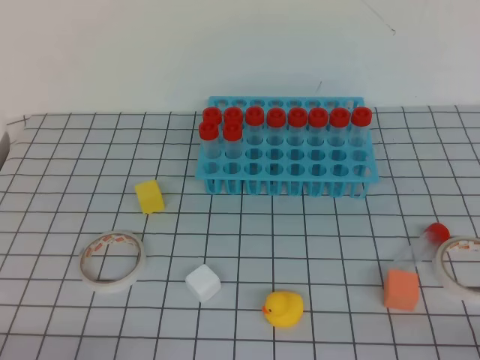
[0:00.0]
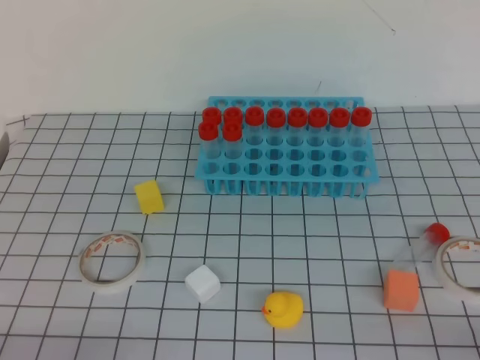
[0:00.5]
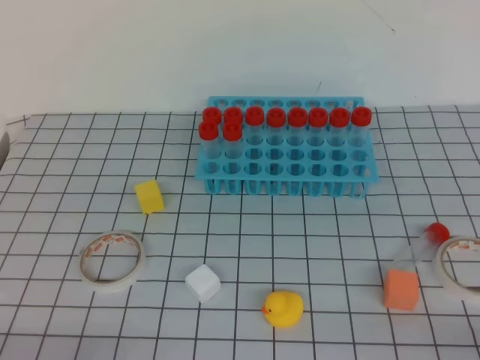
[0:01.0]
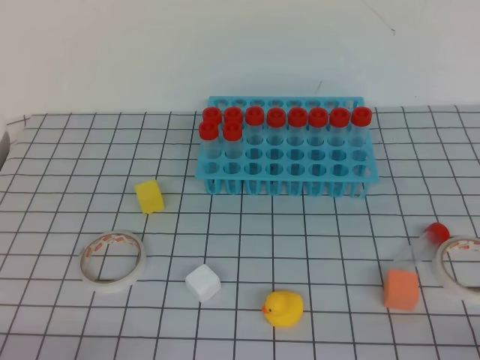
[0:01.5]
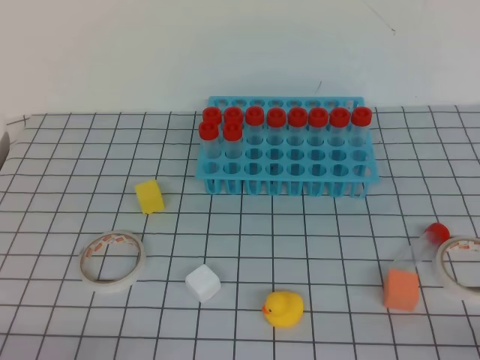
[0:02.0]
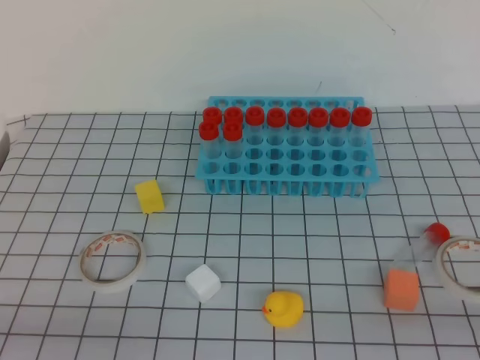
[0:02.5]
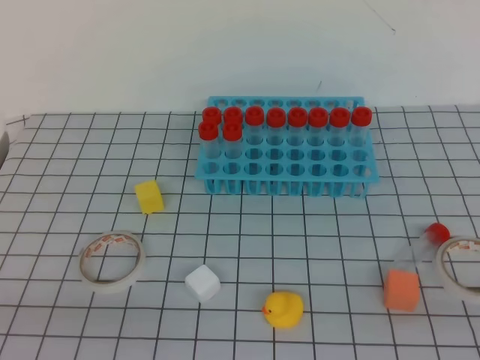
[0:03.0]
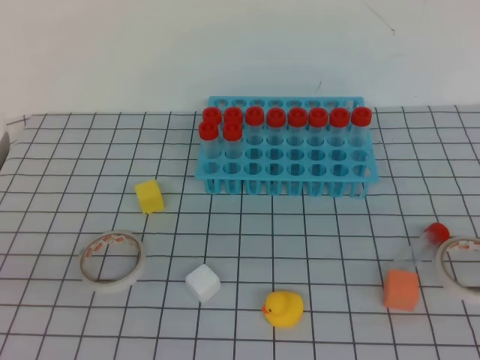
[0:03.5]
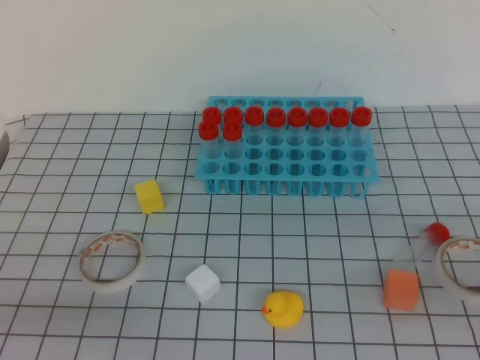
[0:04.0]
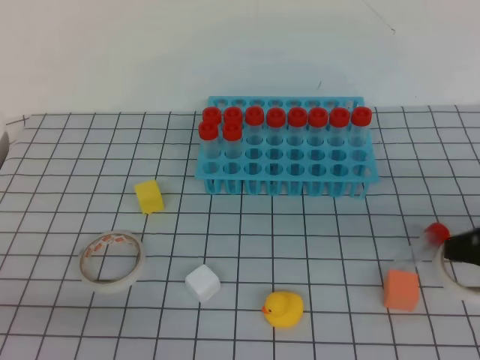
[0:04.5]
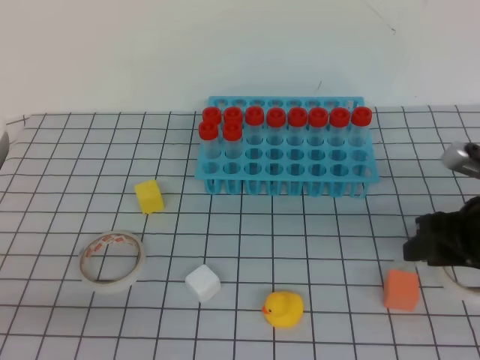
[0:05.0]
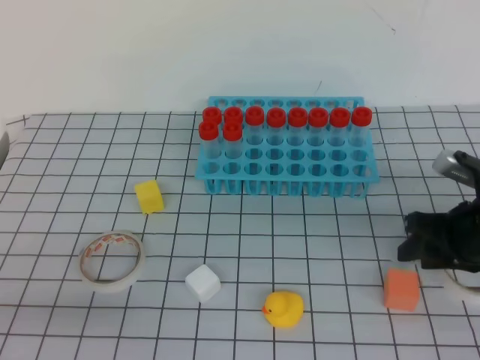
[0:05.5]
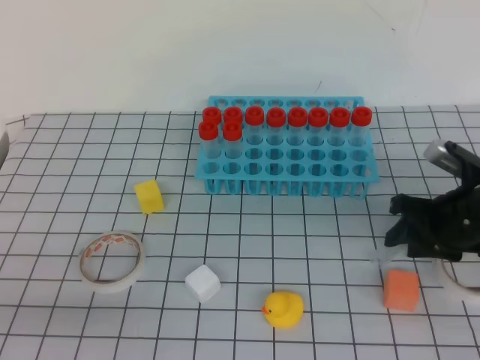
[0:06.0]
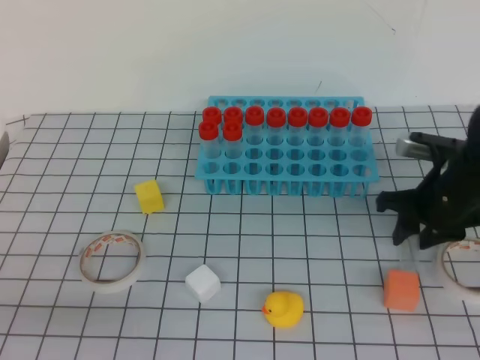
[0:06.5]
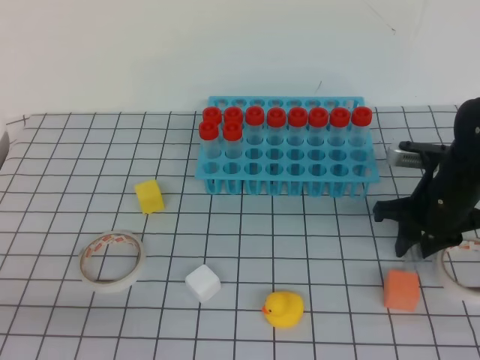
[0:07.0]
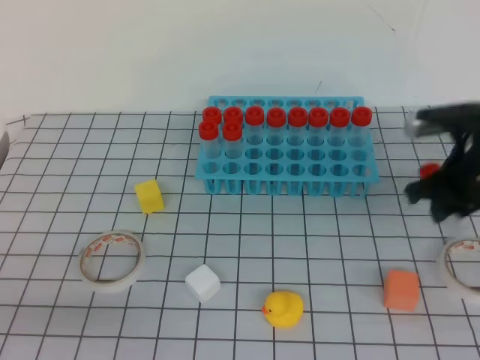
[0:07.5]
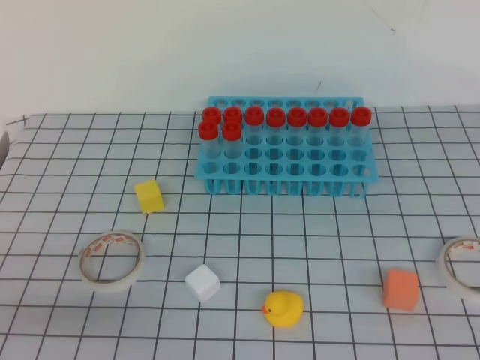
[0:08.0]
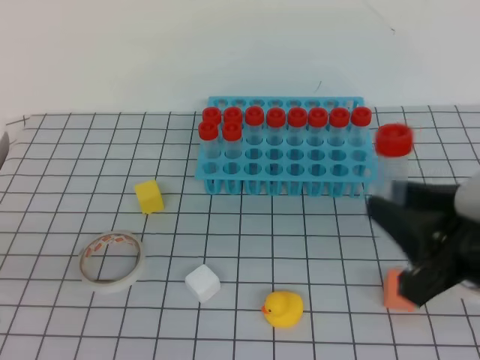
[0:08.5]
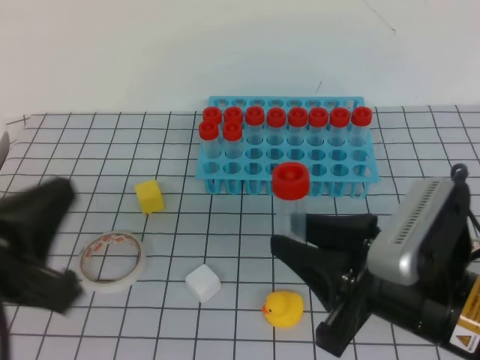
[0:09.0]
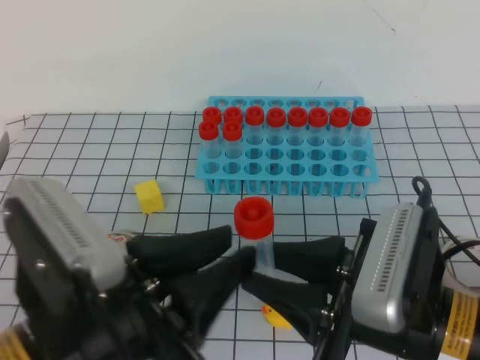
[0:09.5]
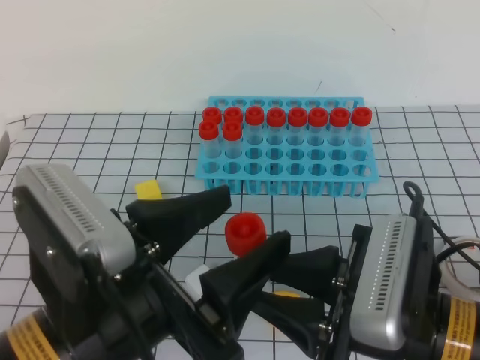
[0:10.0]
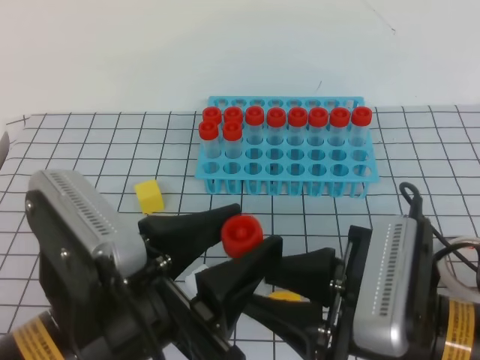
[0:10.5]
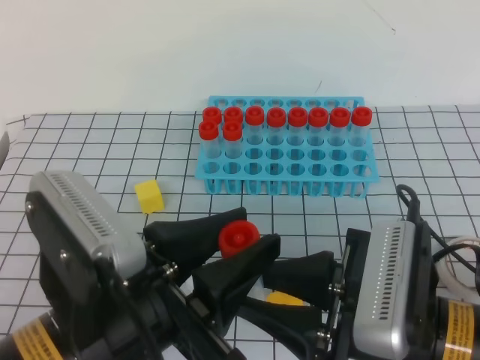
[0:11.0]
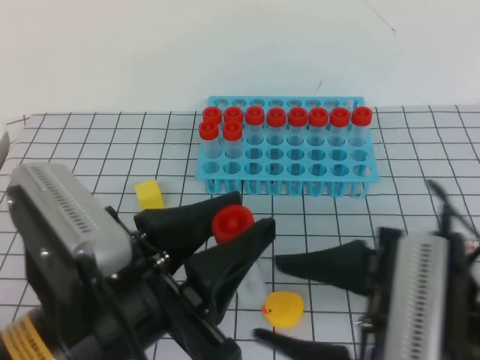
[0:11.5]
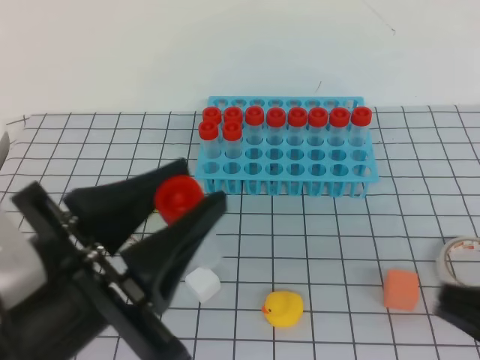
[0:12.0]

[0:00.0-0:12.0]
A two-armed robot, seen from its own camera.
0:00.0 to 0:02.0: Both grippers stay about where they are.
0:02.0 to 0:04.0: The left gripper shifts some 10 cm upward. Meanwhile the right gripper goes roughly 10 cm upward and forward.
0:04.0 to 0:06.0: The right gripper is displaced forward and downward by some 25 cm, and opens its fingers.
0:06.0 to 0:08.0: The right gripper moves upward, some 20 cm.
0:08.0 to 0:10.0: The right gripper travels to the left, backward and downward by about 20 cm; the left gripper heads to the right, covering about 15 cm, and opens its fingers.
0:10.0 to 0:12.0: The right gripper shifts some 15 cm to the right, backward and upward, and closes its fingers; the left gripper closes its fingers.

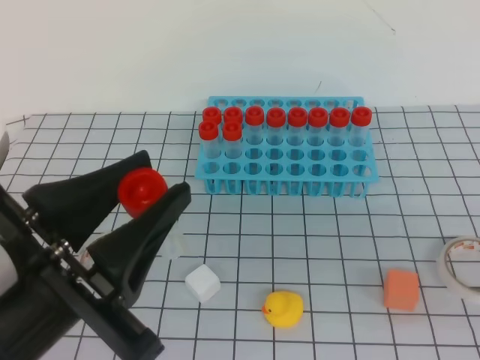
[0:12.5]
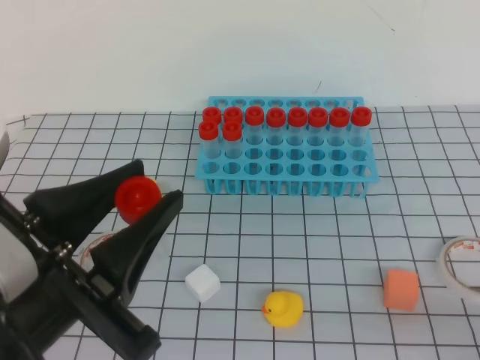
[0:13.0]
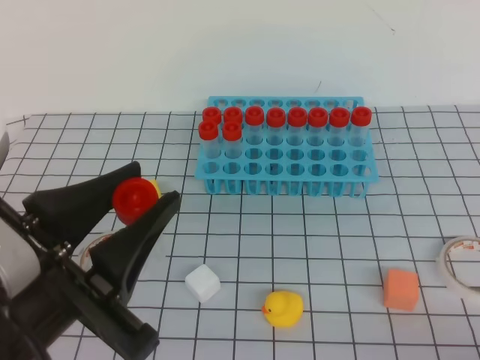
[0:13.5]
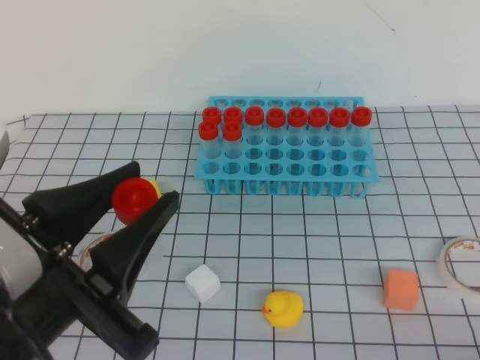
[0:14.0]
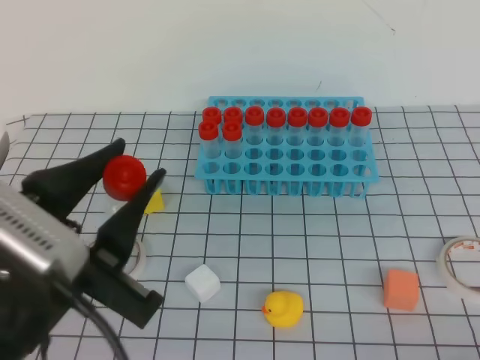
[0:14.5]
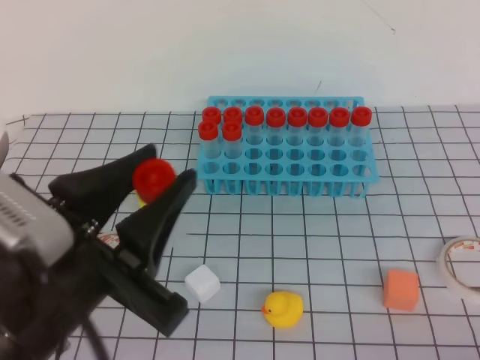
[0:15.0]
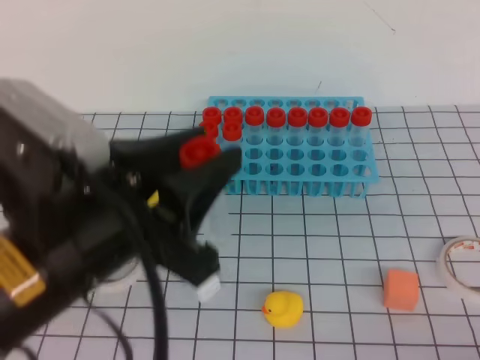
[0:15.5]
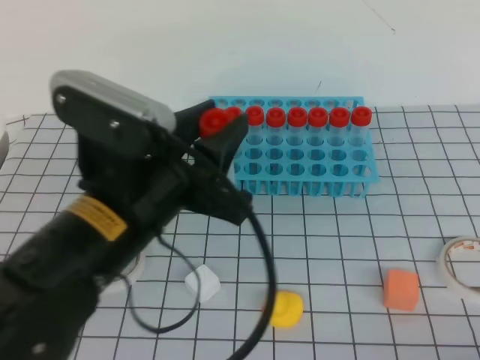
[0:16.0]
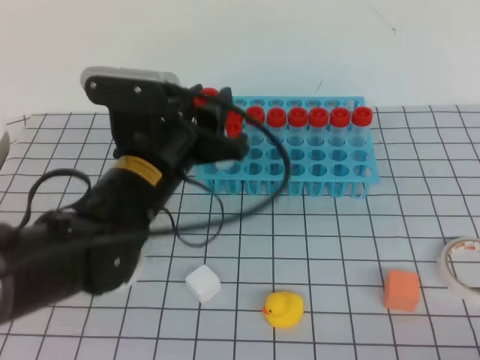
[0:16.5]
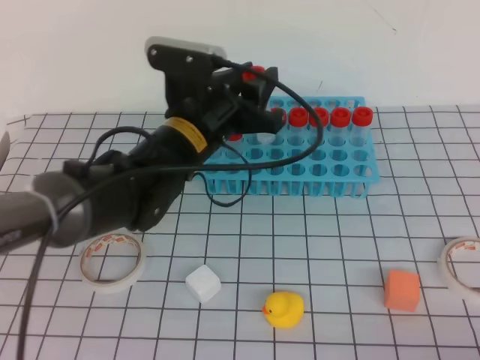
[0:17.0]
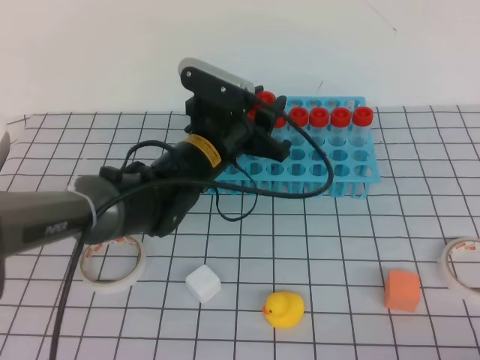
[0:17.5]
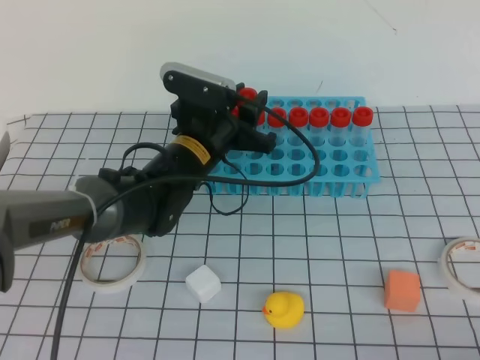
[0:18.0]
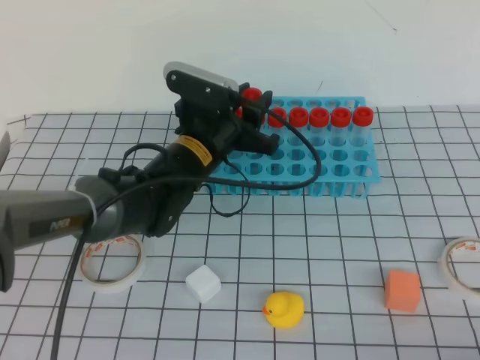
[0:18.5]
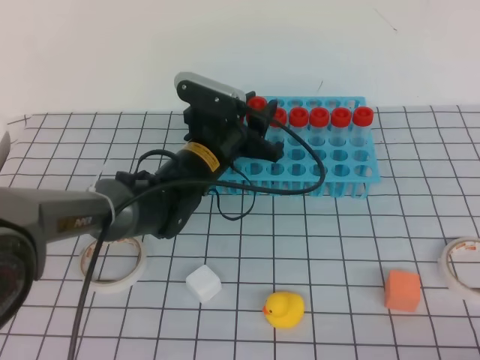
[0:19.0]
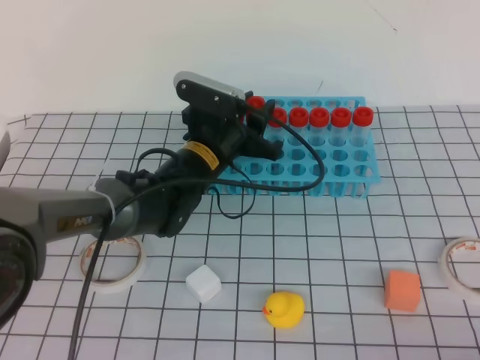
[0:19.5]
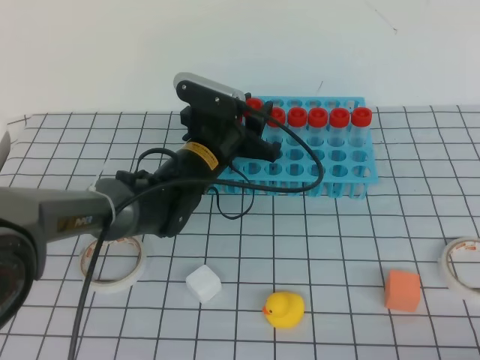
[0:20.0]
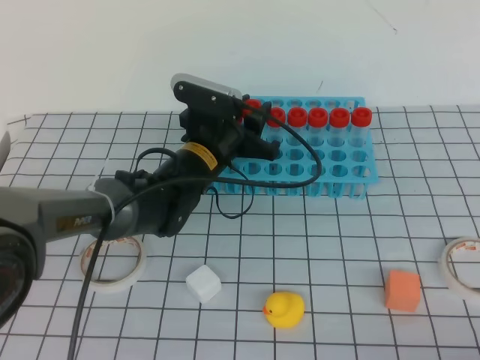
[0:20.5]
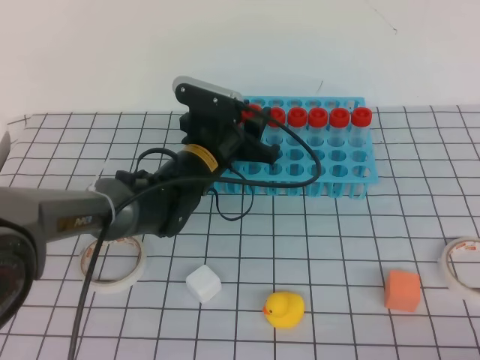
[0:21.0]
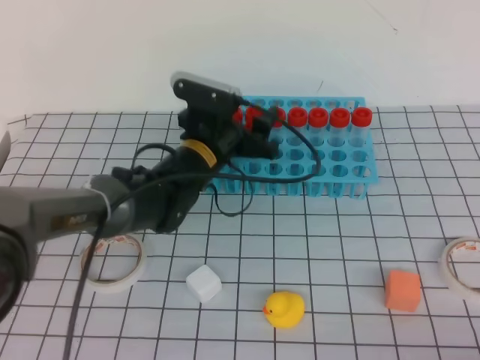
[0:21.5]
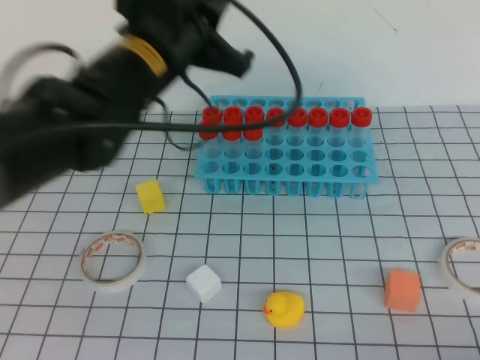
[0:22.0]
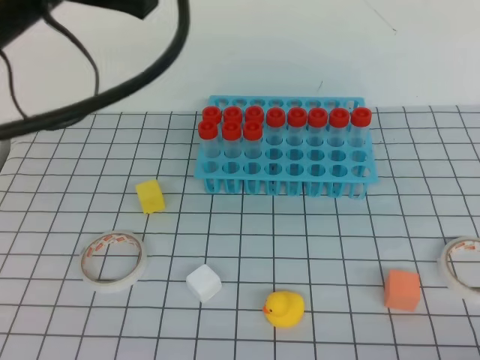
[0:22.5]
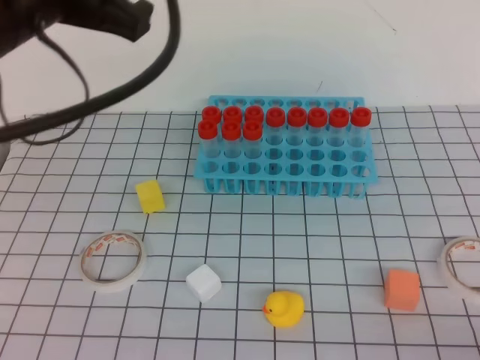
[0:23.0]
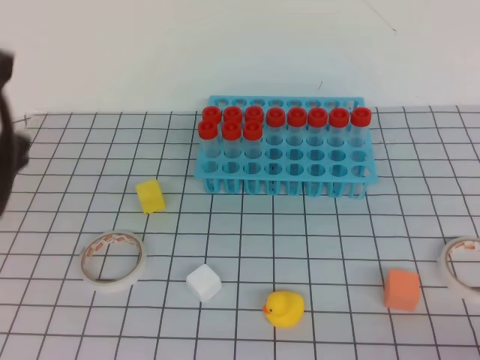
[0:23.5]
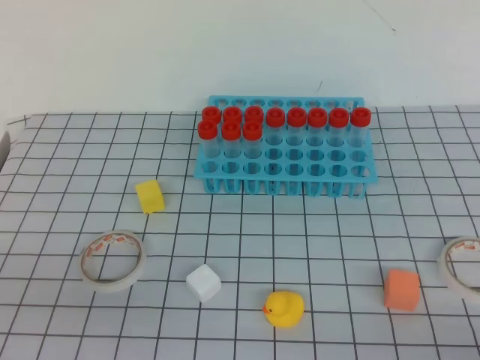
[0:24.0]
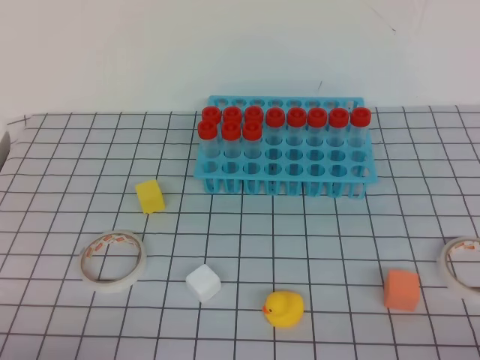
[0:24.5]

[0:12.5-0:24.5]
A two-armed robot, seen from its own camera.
0:12.5 to 0:14.5: The right gripper is displaced backward by about 5 cm.
0:14.5 to 0:16.5: The left gripper is displaced forward by some 15 cm.
0:16.5 to 0:18.5: The left gripper shifts roughly 15 cm forward and downward.
0:18.5 to 0:20.5: The grippers move only a little.
0:20.5 to 0:22.5: The left gripper heads upward and backward, covering about 30 cm, and closes its fingers.
0:22.5 to 0:24.5: The left gripper is displaced downward, backward and to the left by about 35 cm.
